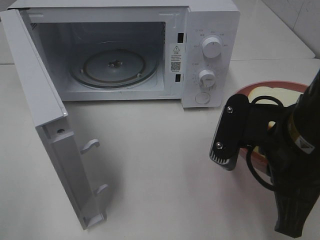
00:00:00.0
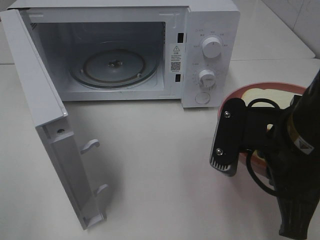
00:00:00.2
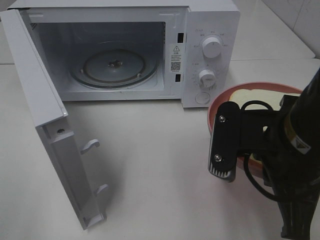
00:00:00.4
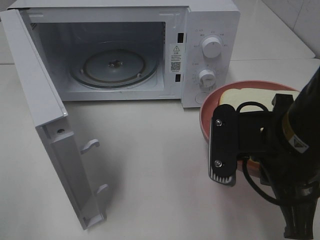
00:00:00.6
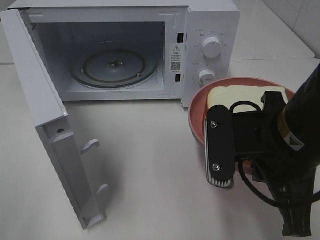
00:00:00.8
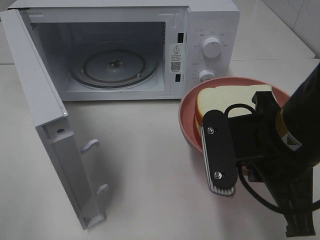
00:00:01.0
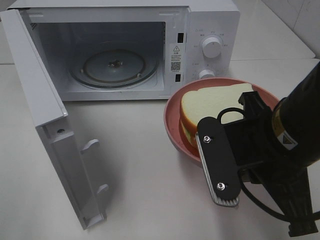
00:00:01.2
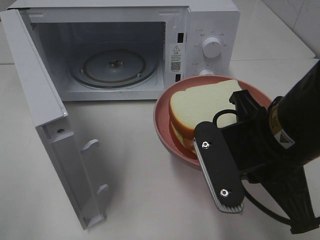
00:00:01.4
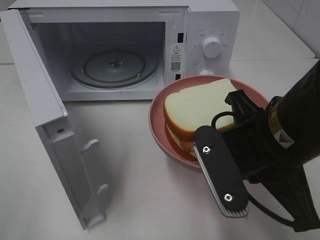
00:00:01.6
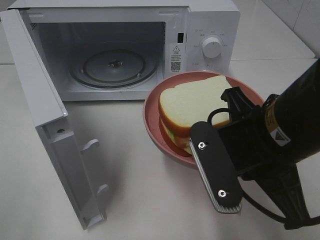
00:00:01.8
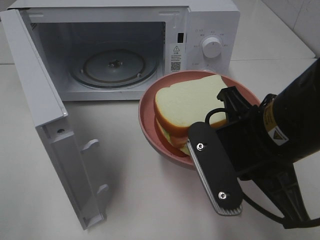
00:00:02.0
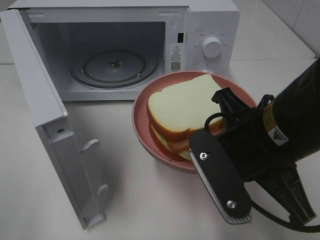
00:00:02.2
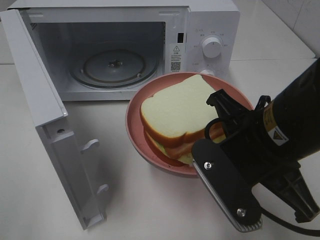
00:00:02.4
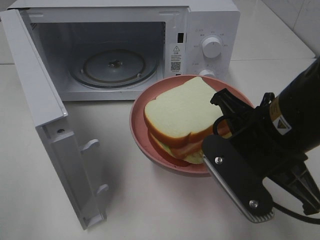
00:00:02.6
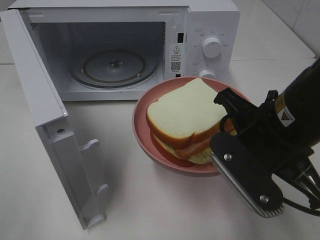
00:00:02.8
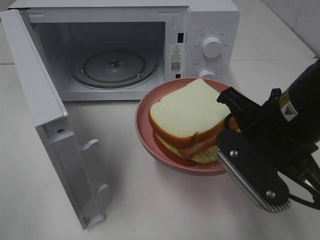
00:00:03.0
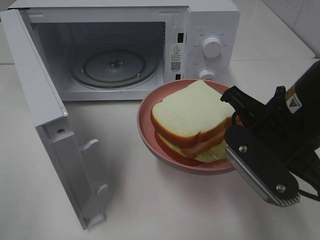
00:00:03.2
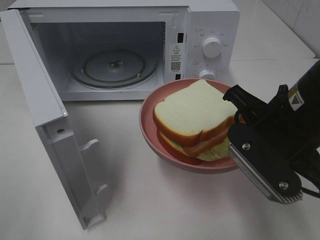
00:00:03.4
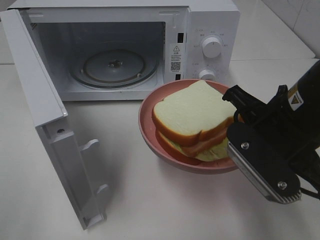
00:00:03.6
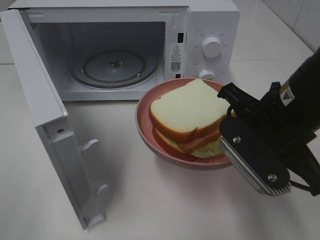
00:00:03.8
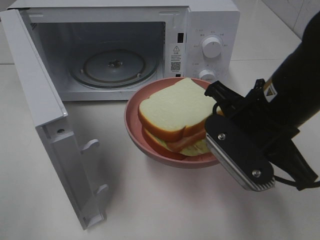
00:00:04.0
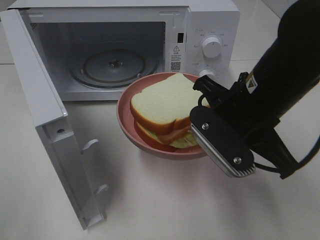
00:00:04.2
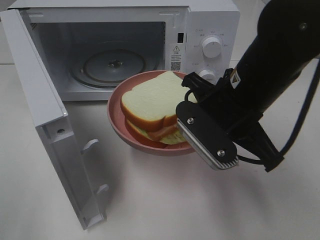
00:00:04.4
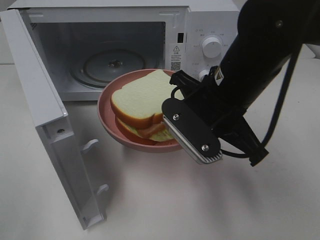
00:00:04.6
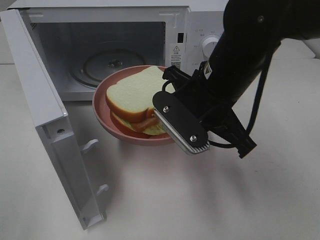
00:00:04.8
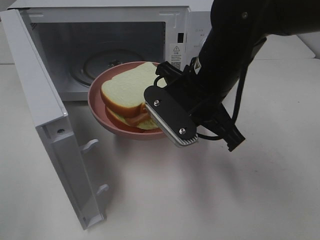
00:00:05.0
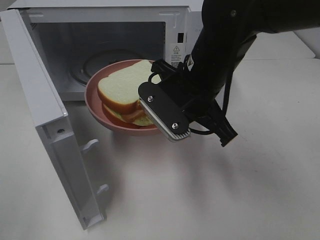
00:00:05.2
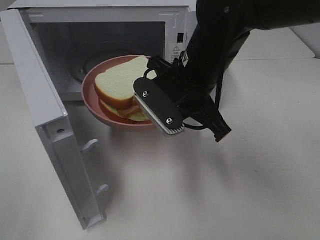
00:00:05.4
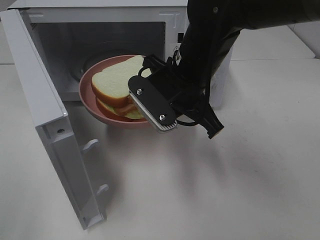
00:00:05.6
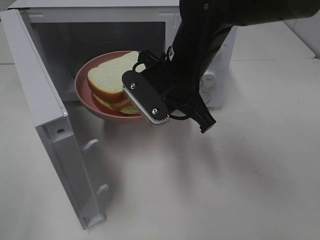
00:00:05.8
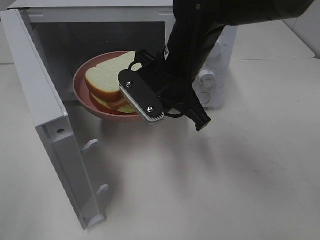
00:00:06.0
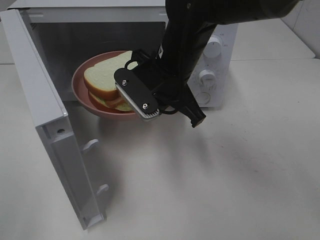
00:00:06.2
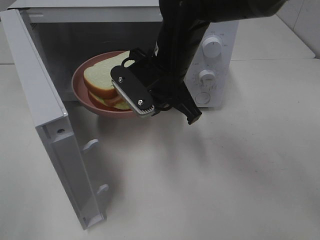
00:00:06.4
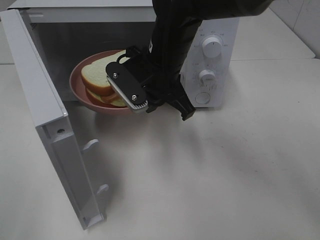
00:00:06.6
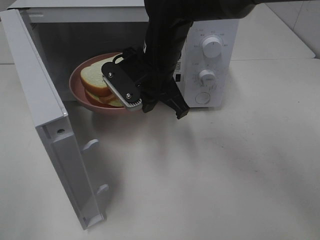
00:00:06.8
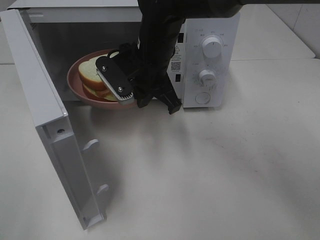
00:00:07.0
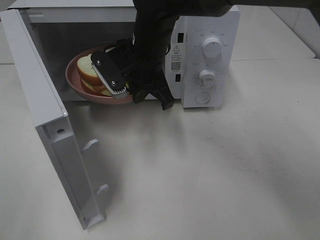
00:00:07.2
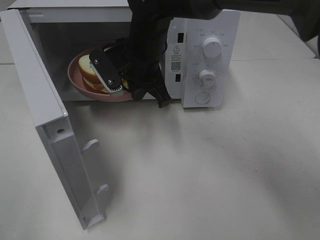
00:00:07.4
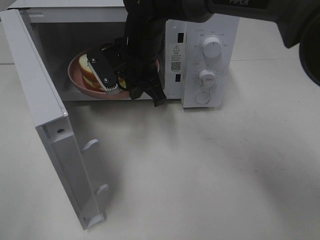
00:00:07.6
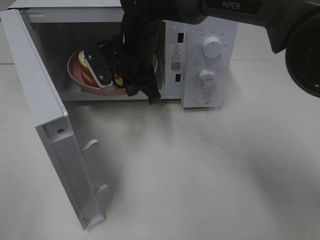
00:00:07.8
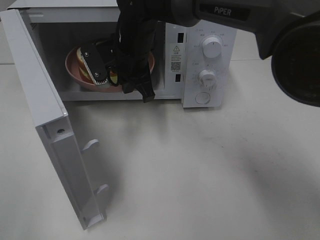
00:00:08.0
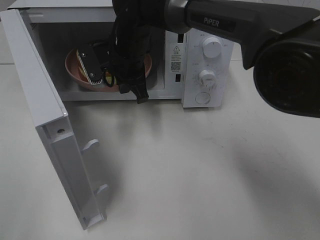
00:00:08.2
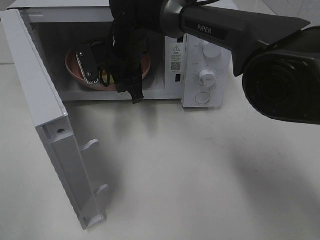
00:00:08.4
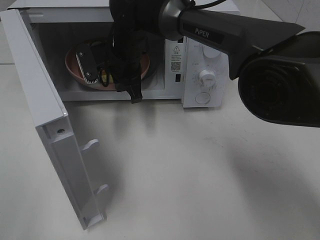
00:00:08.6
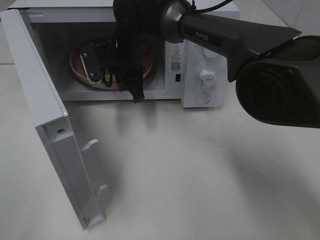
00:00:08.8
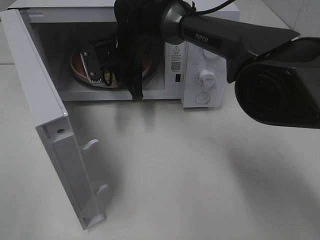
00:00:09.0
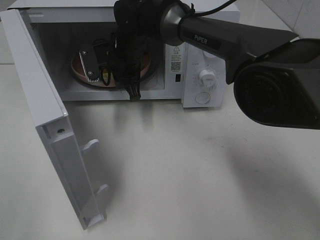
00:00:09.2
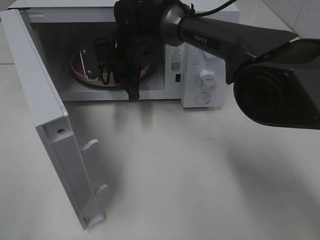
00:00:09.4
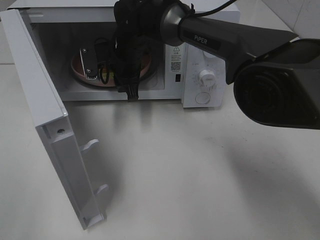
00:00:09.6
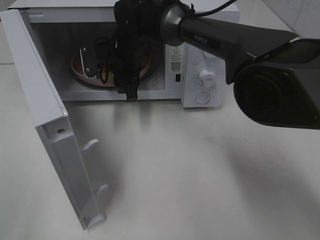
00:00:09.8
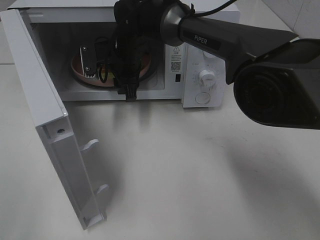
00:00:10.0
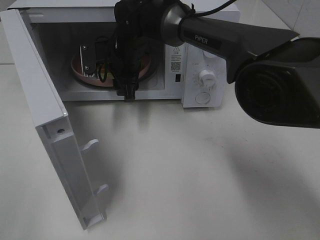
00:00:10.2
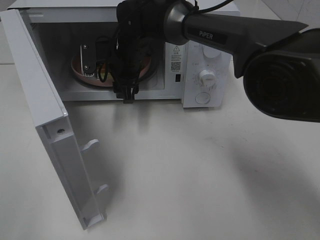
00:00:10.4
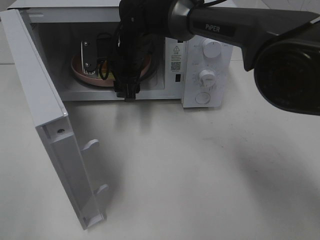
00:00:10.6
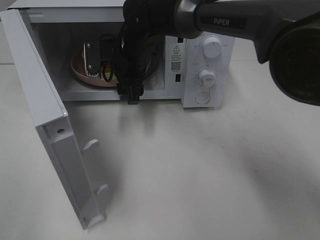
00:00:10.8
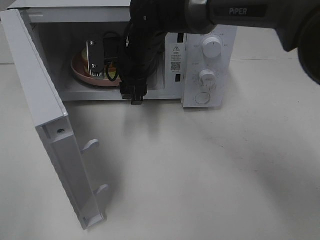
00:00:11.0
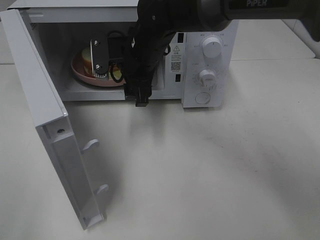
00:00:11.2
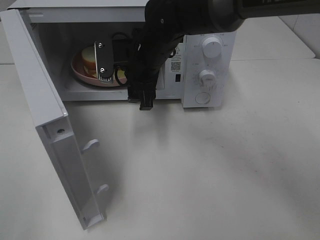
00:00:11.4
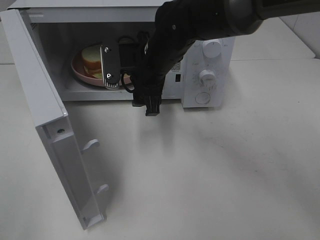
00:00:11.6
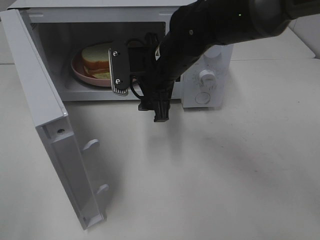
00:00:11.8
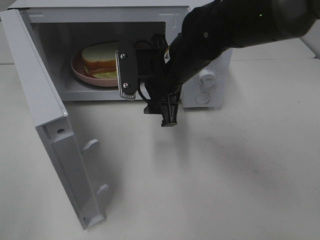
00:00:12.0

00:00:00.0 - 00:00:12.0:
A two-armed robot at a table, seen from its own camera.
Task of the whole recording: Heat Sandwich.
Step, 00:00:00.0 - 00:00:11.4: Right hand: place the plate in the microwave.
00:00:01.6 - 00:00:03.0: There are only small adjustments of the grippers.
00:00:03.0 - 00:00:04.4: The right gripper changes place by roughly 5 cm.
00:00:04.4 - 00:00:06.0: The right gripper heads forward and to the left, covering some 10 cm.
00:00:06.0 - 00:00:07.6: The right gripper is displaced forward and to the left by about 10 cm.
00:00:07.6 - 00:00:09.0: The right gripper travels forward by roughly 5 cm.
00:00:09.0 - 00:00:10.4: The right gripper opens.
00:00:10.4 - 00:00:12.0: The right gripper goes about 15 cm backward and to the right.

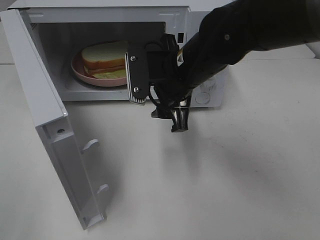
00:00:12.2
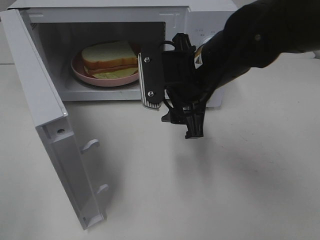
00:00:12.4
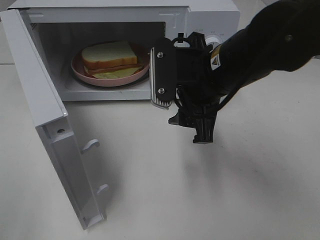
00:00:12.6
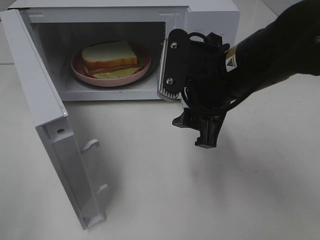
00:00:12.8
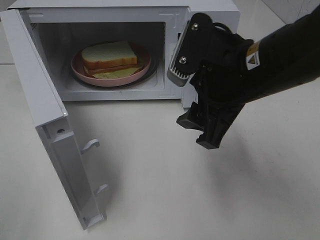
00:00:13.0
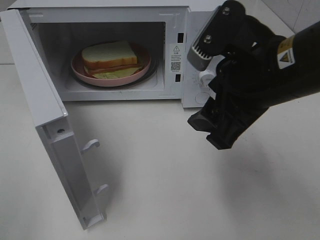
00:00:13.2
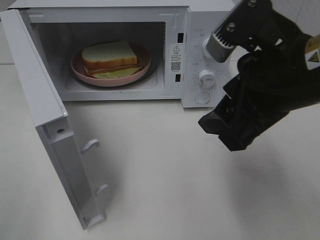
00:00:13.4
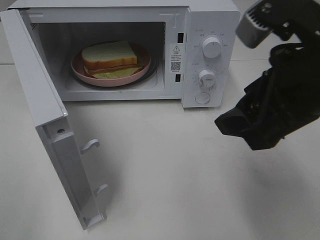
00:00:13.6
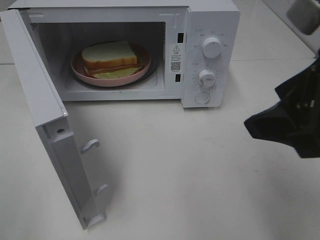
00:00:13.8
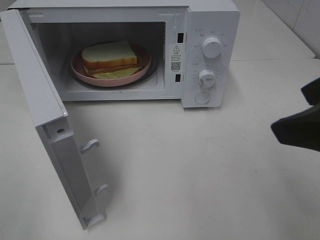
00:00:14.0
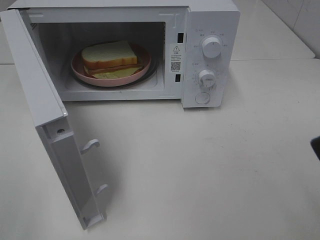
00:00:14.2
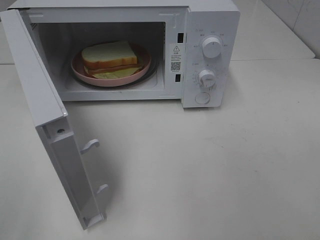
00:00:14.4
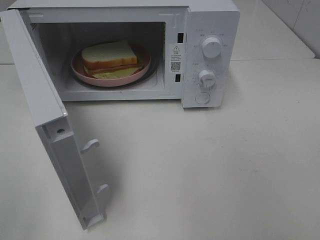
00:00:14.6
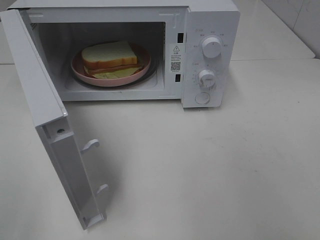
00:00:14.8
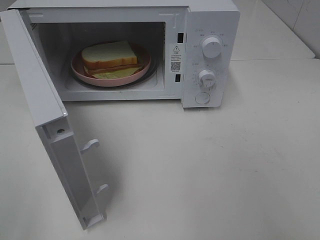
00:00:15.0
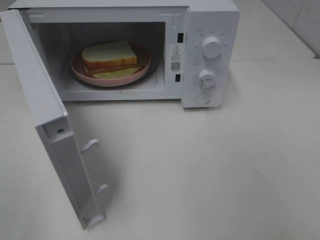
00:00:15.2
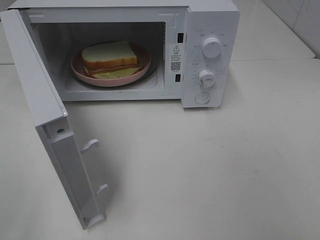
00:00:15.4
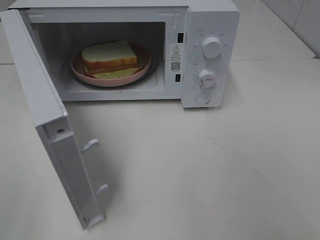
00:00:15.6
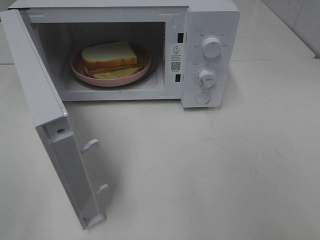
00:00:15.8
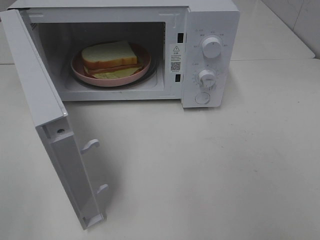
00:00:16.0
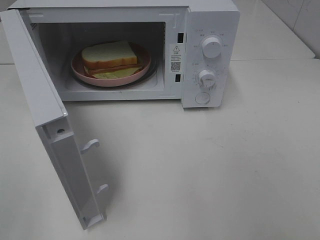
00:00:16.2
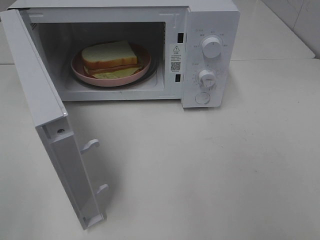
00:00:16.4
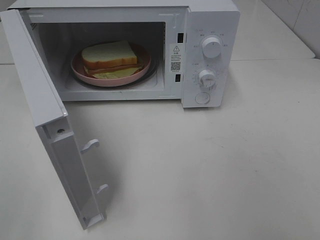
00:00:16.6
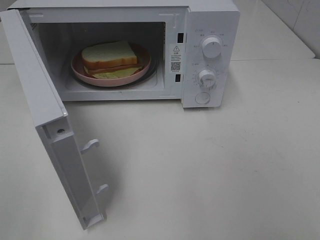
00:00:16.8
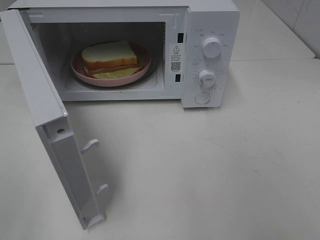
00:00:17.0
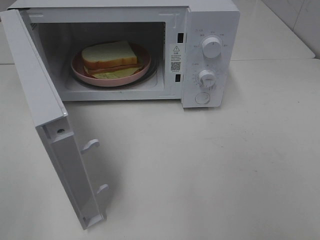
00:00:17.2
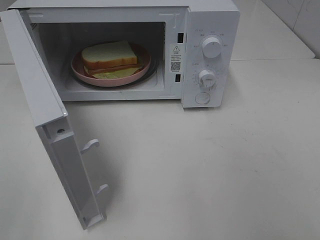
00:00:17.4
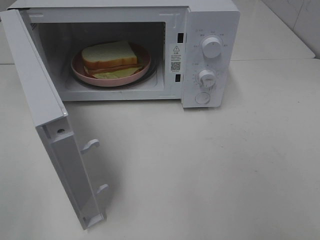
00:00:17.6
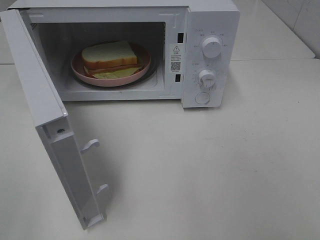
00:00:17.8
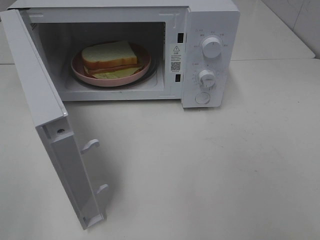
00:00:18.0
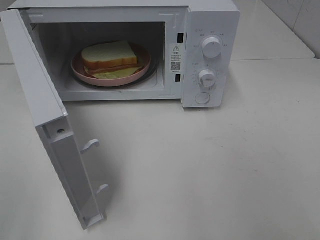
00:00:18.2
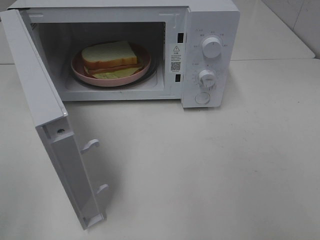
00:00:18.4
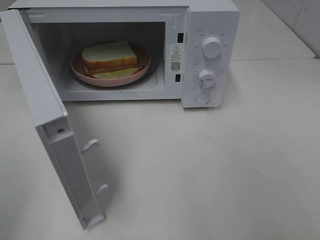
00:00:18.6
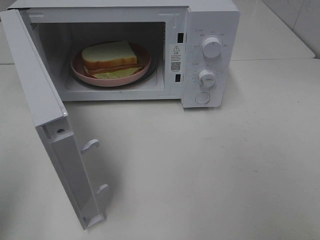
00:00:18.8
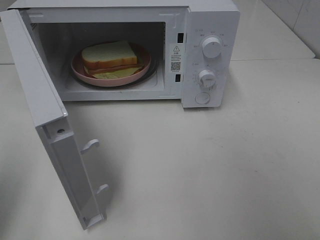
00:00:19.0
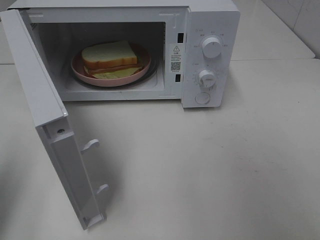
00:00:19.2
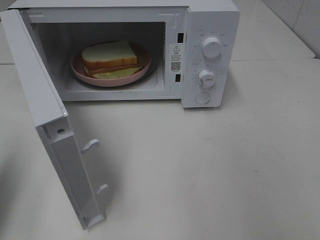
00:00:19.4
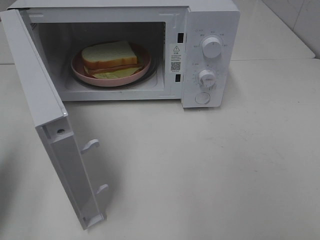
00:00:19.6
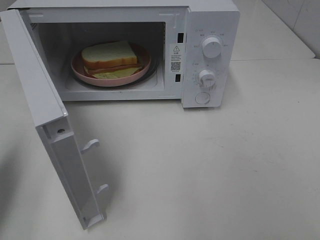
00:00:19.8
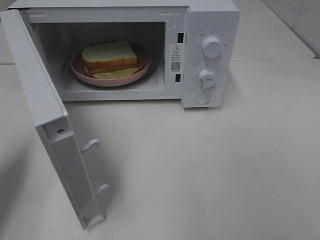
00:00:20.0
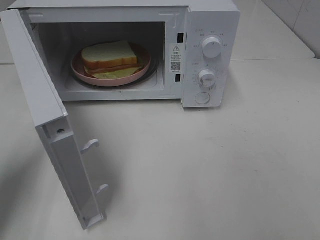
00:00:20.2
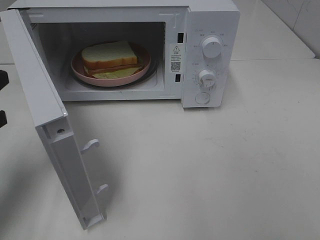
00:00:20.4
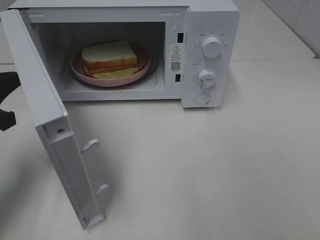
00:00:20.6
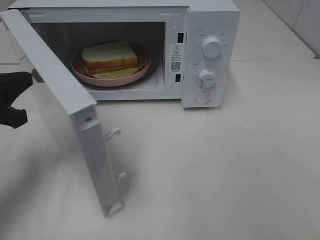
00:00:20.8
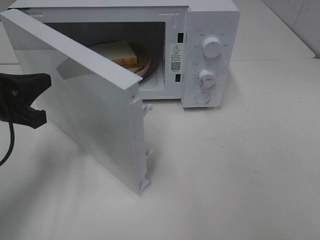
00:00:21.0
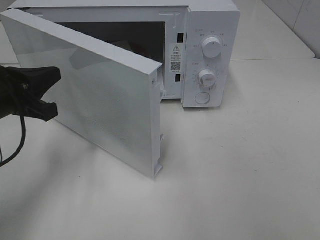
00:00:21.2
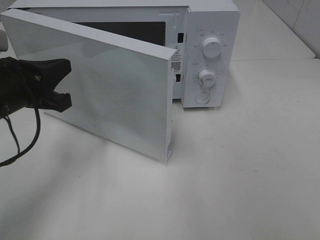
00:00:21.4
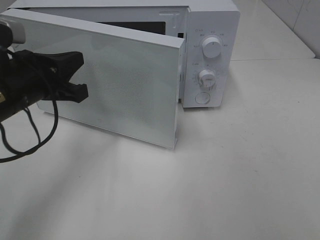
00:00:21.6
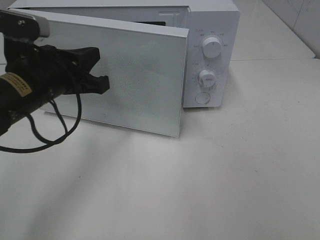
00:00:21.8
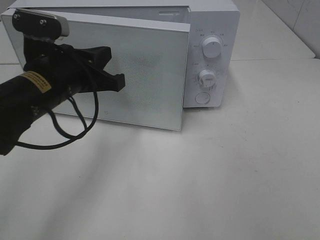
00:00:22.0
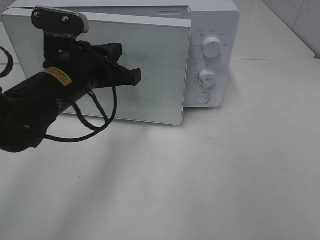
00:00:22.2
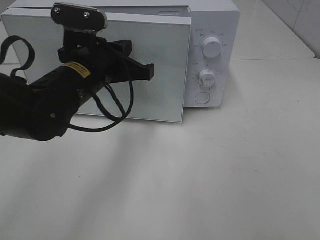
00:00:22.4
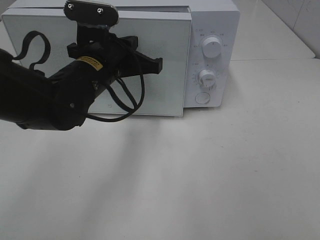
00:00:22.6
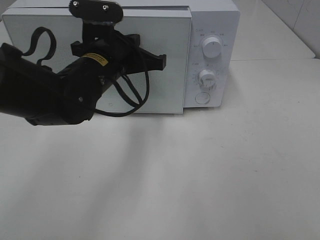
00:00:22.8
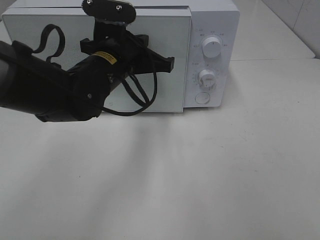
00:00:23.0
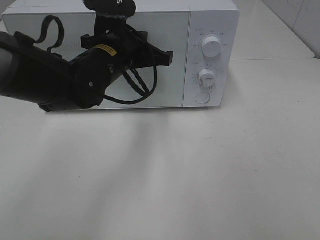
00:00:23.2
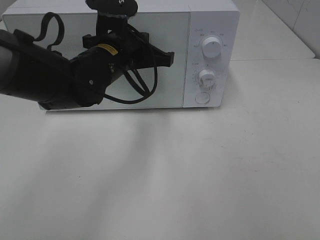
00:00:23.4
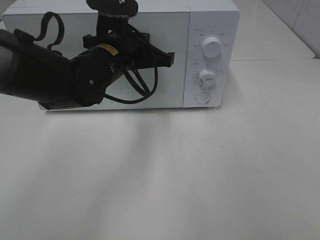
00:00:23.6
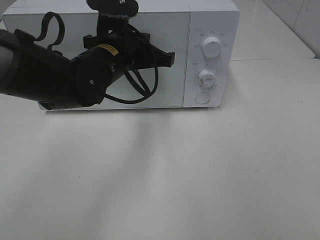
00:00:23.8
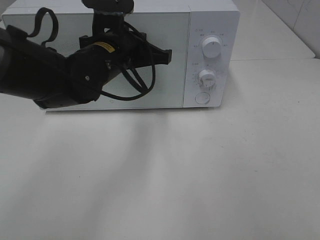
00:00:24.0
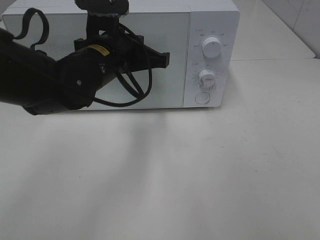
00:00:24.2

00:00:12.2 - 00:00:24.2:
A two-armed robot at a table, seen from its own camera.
Task of the whole recording: Heat Sandwich.
00:00:12.2 - 00:00:13.8: The right gripper is displaced backward, to the right and upward by roughly 25 cm.
00:00:13.8 - 00:00:15.2: The right gripper is displaced backward and to the right by some 15 cm.
00:00:18.2 - 00:00:19.8: The left gripper shifts about 15 cm forward, and closes.
00:00:19.8 - 00:00:21.2: The left gripper goes about 15 cm to the right, forward and downward.
00:00:21.2 - 00:00:22.6: The left gripper travels to the right and forward by some 15 cm.
00:00:22.6 - 00:00:24.2: The grippers move only a little.
